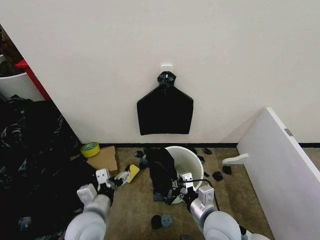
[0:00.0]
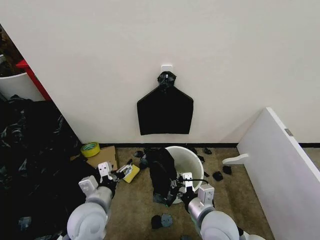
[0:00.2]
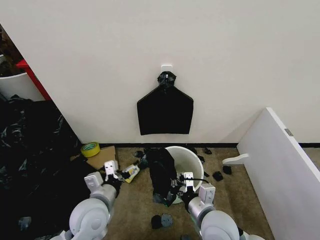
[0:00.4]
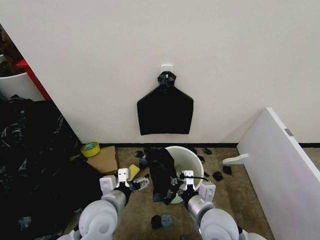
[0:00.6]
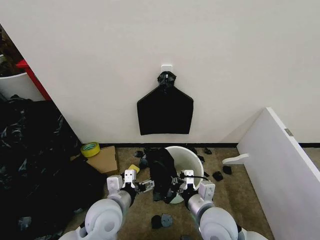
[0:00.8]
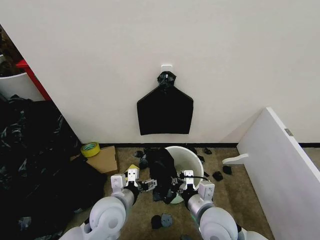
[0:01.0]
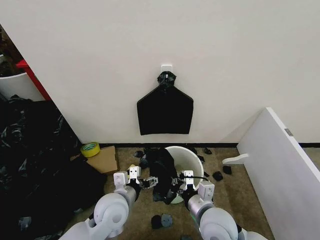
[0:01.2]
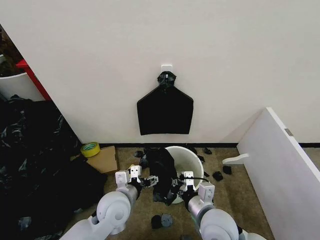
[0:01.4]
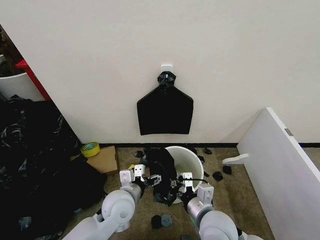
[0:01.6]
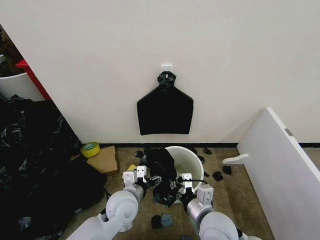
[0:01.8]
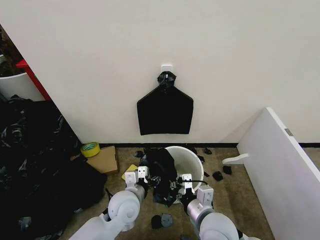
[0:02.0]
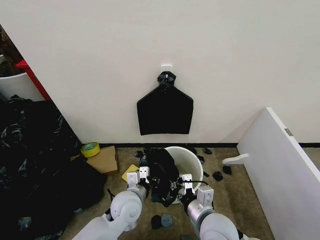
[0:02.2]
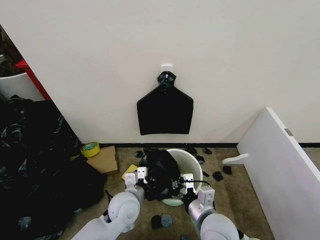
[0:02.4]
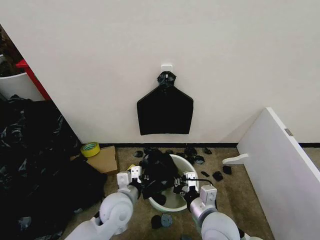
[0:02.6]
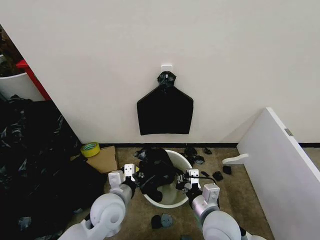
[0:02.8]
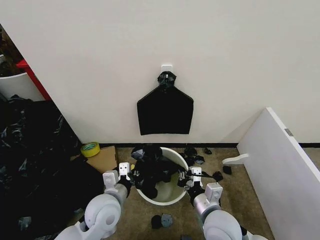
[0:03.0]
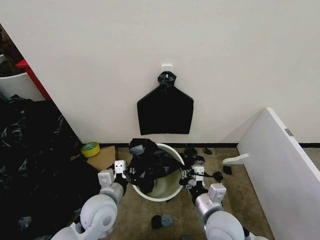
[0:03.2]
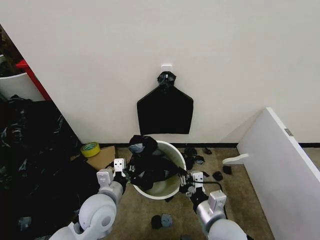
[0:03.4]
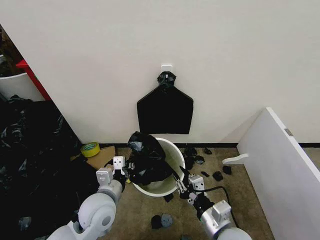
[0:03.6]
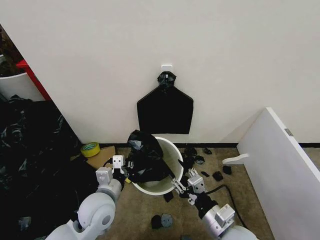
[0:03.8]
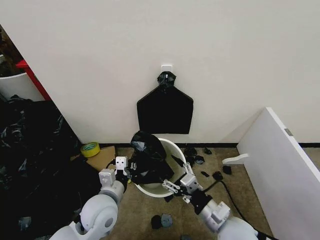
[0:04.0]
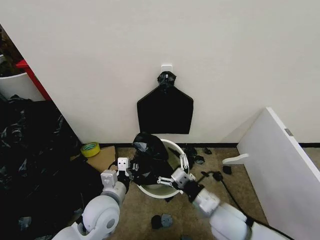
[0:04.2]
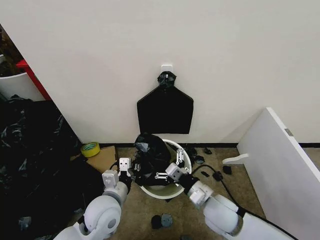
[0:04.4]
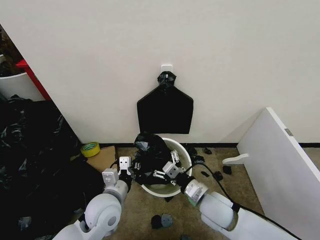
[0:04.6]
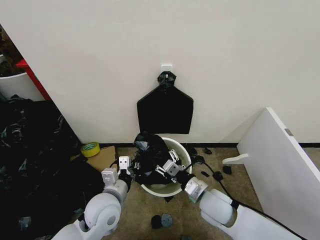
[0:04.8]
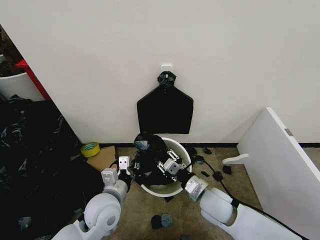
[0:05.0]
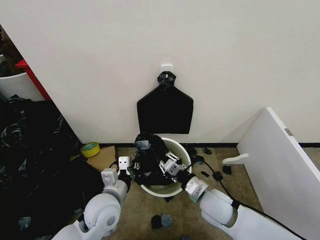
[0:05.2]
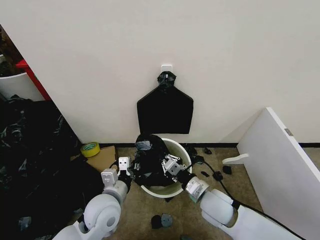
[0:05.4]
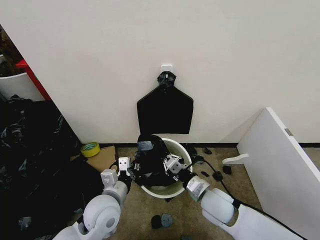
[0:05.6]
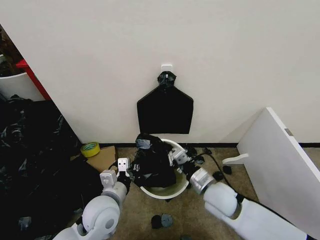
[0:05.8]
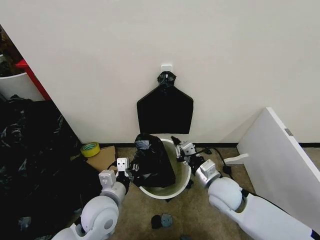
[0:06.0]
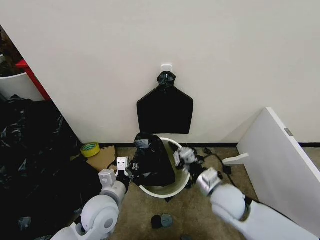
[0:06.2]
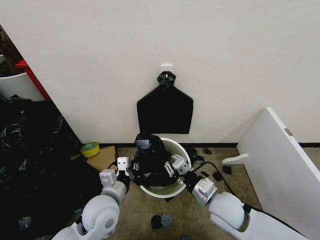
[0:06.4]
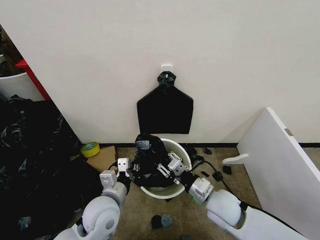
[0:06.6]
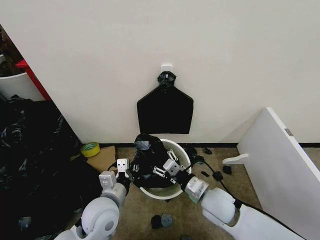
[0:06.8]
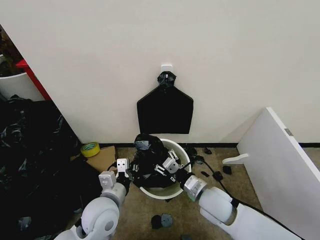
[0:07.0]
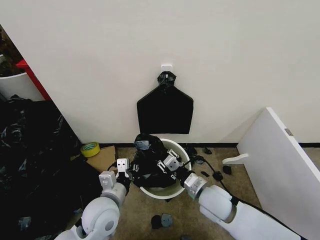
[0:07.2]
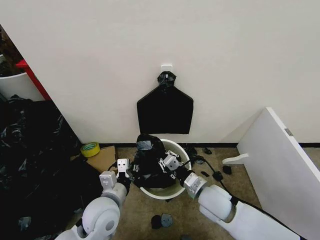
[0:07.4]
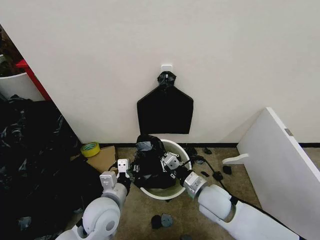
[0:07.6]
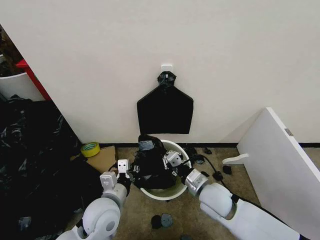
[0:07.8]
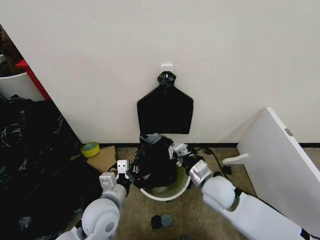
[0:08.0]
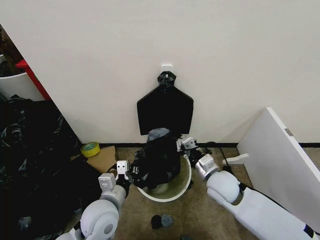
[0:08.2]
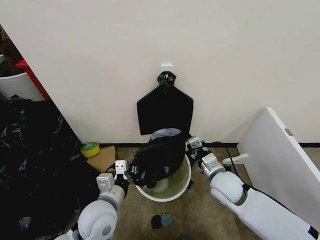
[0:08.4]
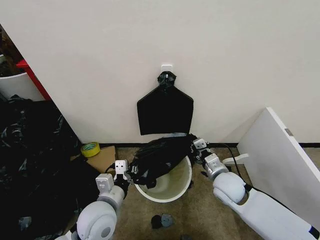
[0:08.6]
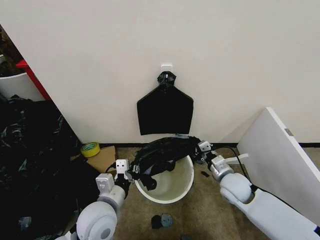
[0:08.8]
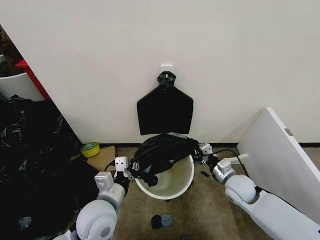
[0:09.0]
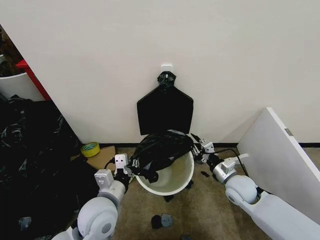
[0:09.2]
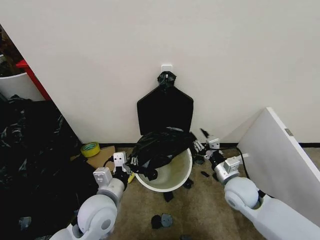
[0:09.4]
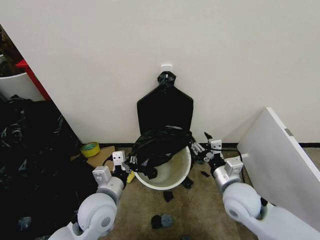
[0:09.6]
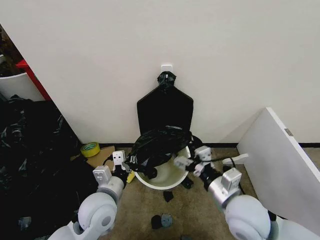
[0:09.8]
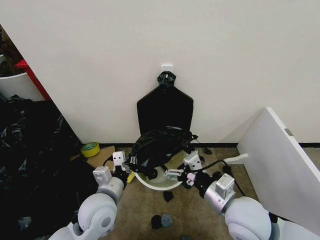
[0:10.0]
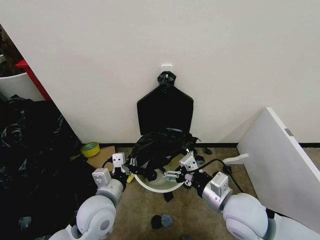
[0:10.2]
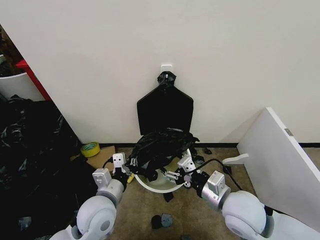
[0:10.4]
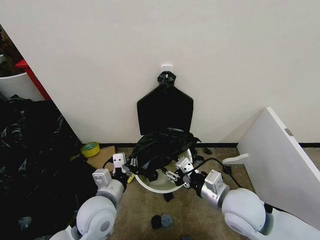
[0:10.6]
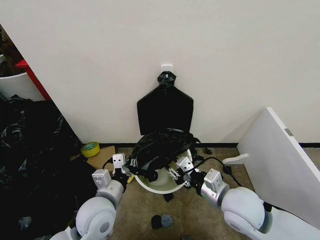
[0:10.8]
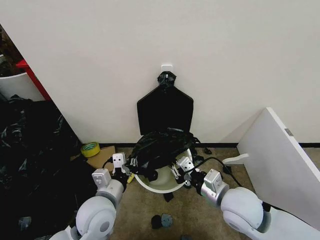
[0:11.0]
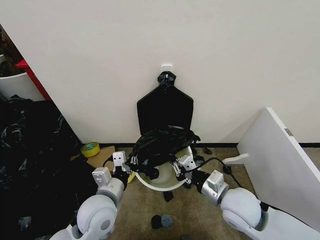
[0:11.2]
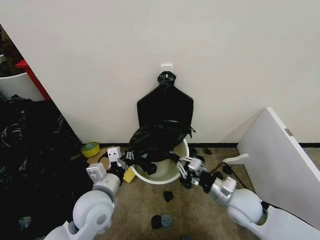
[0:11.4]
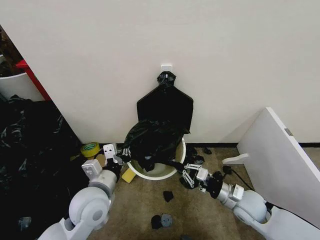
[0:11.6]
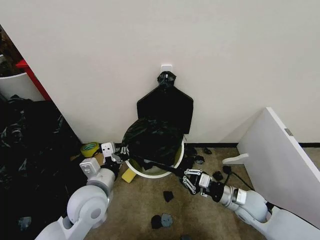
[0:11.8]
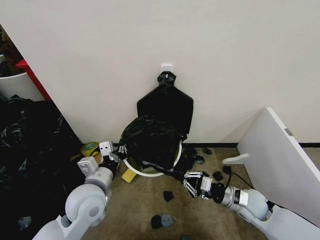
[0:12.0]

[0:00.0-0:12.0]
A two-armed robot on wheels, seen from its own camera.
Task of the whole recording: Place the garbage bag over the trash bin.
0:00.0 to 0:01.6: The left gripper goes approximately 10 cm to the right and forward.
0:01.6 to 0:03.0: The left gripper closes.
0:03.0 to 0:04.4: The right gripper shifts by some 5 cm, and opens its fingers.
0:04.4 to 0:06.0: The right gripper ends up about 5 cm from where it was, and closes its fingers.
0:06.0 to 0:07.6: The right gripper opens, then closes once more.
0:07.6 to 0:09.0: The right gripper shifts approximately 15 cm to the right and forward.
0:09.0 to 0:10.4: The right gripper moves upward, backward and to the left, roughly 15 cm, and opens up.
0:10.4 to 0:12.0: The right gripper heads downward, to the right and forward, covering some 15 cm, and closes its fingers.

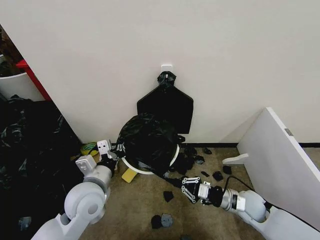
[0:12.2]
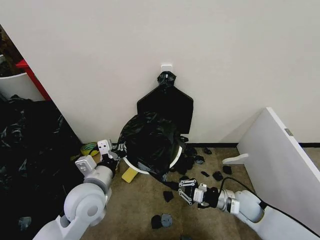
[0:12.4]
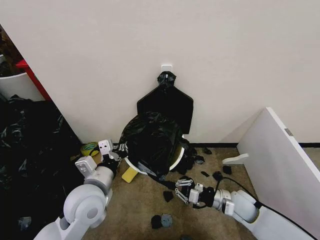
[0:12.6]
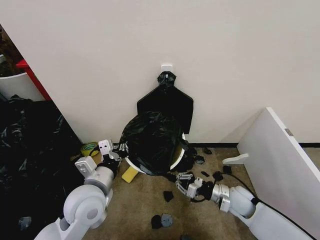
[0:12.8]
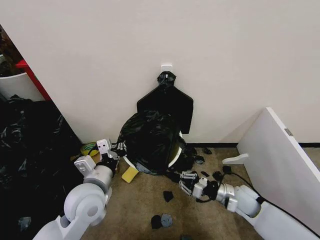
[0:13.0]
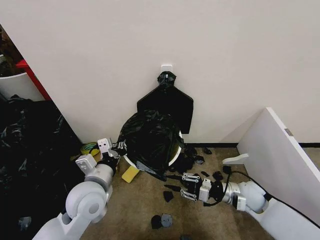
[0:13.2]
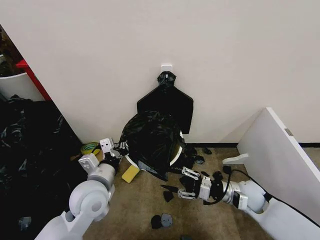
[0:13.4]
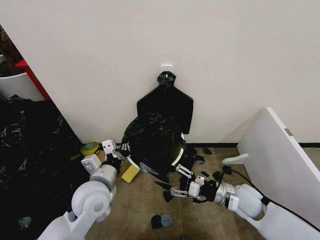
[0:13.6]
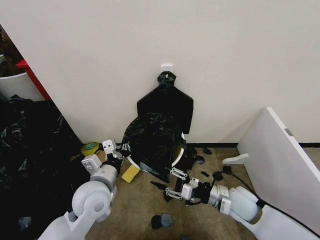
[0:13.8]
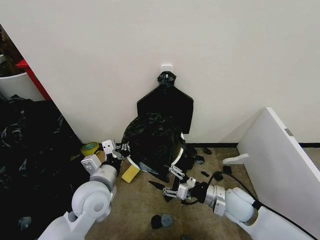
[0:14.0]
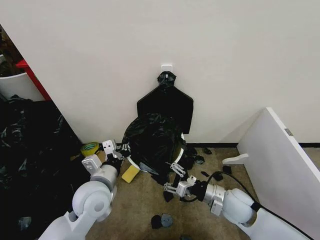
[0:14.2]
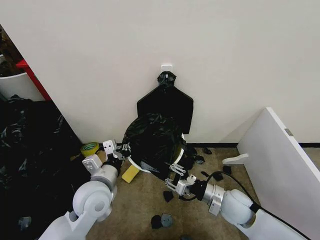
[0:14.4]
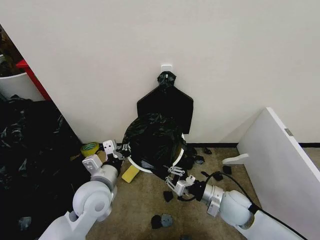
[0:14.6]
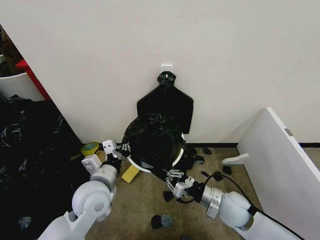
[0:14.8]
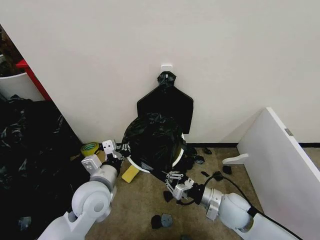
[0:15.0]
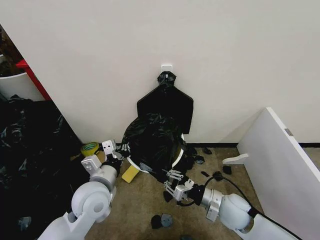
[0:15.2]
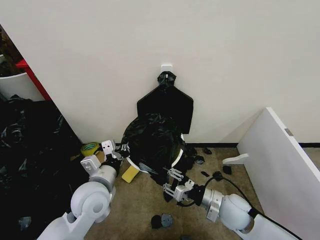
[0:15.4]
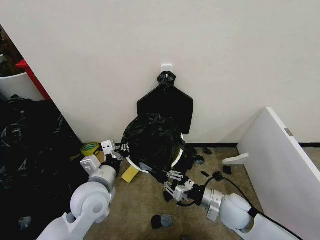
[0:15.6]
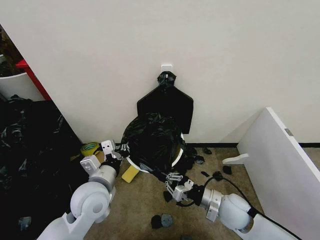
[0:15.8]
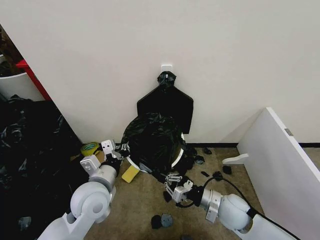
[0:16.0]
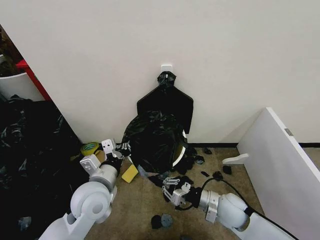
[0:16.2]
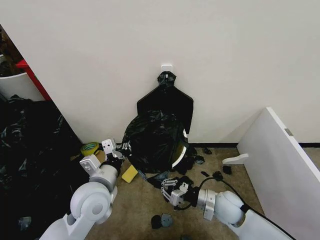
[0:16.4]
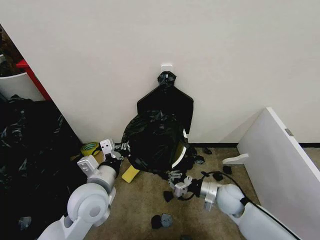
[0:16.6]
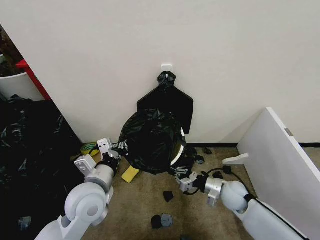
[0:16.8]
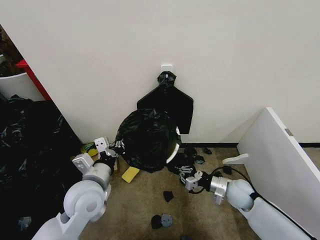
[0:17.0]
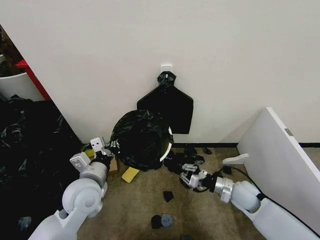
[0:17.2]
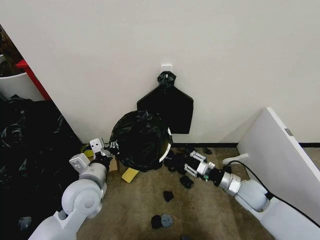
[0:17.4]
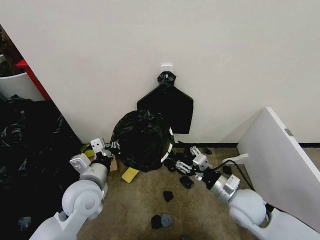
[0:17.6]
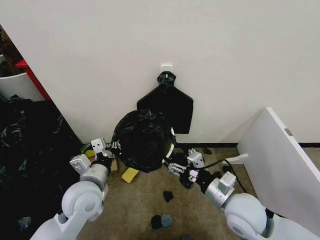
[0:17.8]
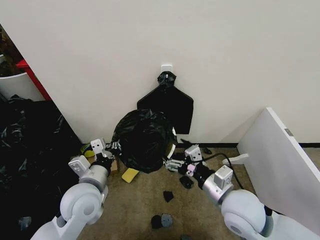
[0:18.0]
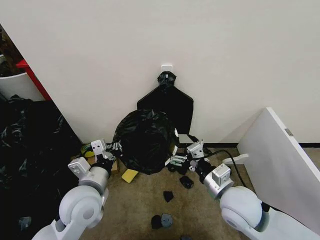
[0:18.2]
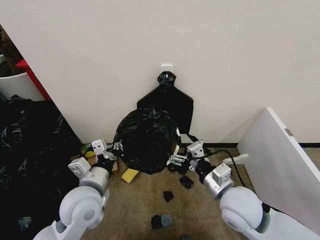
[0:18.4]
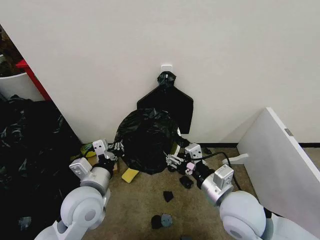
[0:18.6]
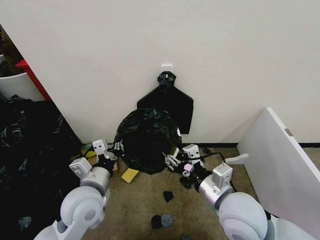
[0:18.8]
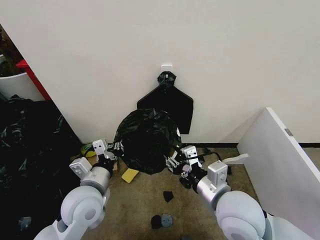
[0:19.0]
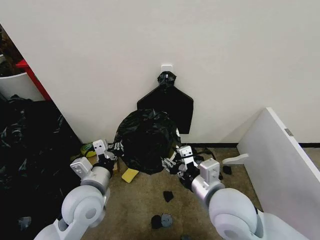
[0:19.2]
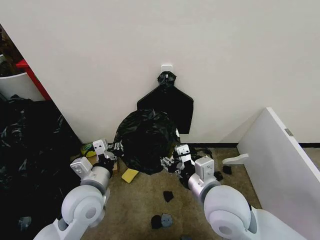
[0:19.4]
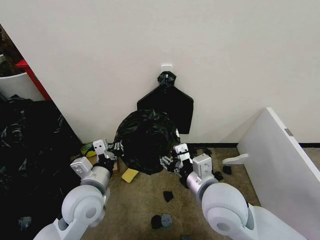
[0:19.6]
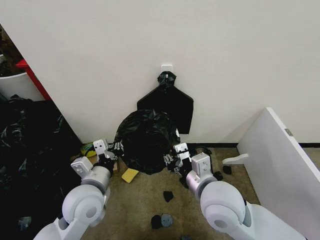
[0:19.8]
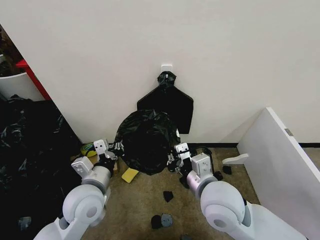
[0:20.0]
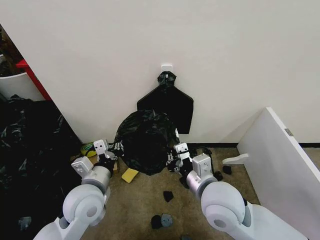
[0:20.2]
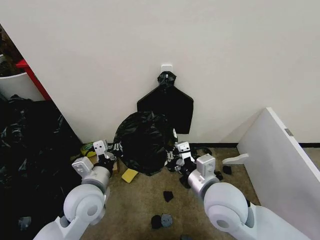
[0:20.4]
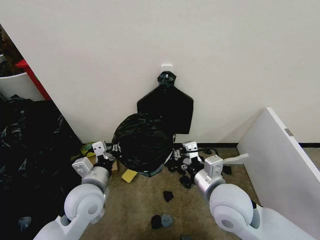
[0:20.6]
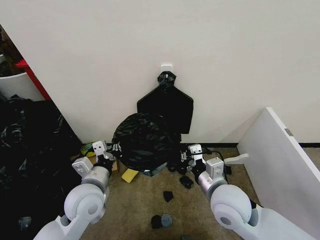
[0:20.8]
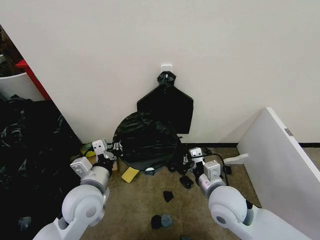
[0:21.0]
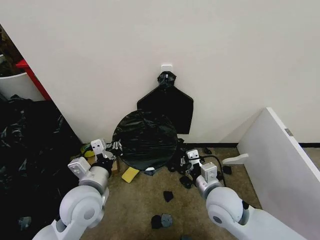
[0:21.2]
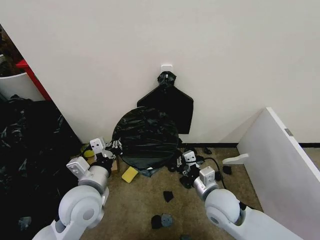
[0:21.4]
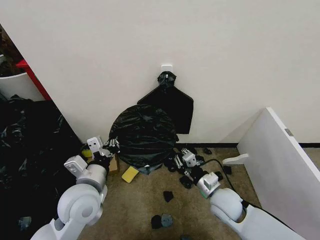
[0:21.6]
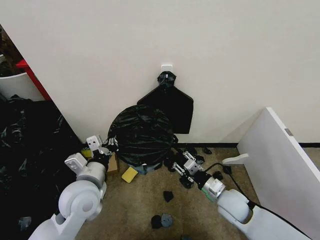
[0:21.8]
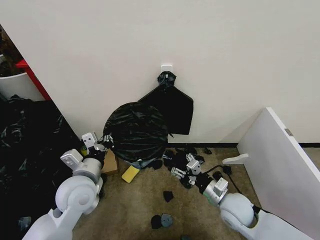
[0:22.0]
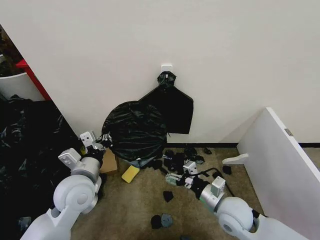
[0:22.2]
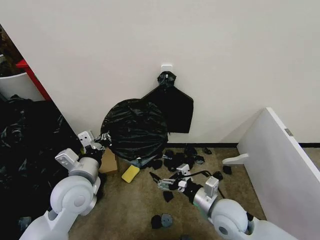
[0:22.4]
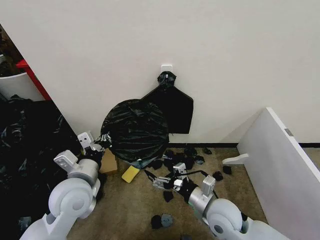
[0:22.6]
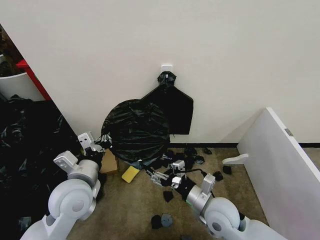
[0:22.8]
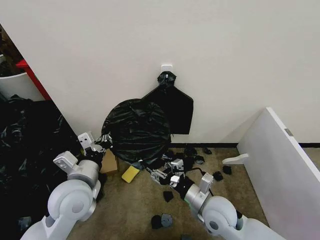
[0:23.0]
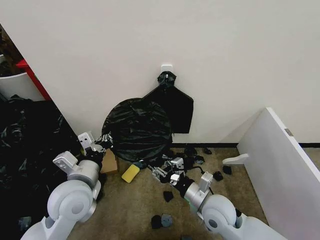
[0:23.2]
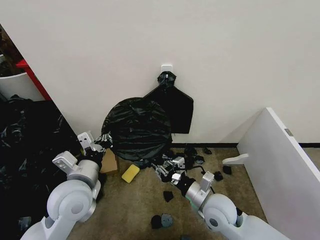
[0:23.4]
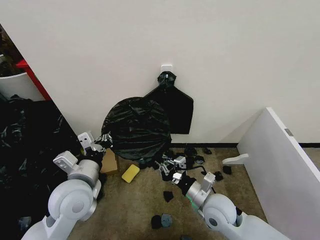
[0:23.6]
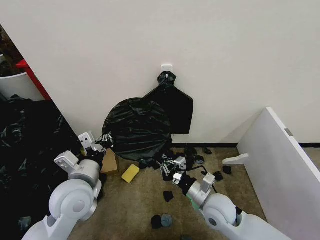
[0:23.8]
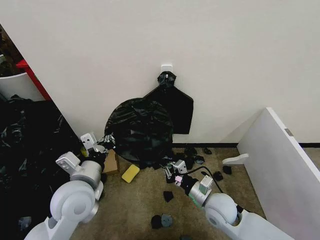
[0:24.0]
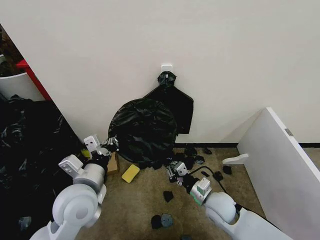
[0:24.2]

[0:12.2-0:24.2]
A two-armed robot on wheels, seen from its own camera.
Task of the whole recording: Place the garbage bag over the trash bin.
0:12.2 to 0:13.8: The right gripper ends up roughly 5 cm from where it was, and opens.
0:13.8 to 0:15.2: The grippers make only small movements.
0:15.2 to 0:16.6: The right gripper moves about 5 cm.
0:16.6 to 0:18.2: The right gripper shifts roughly 15 cm upward and backward, and opens.
0:18.2 to 0:19.8: The right gripper goes about 10 cm to the left and upward, and closes.
0:19.8 to 0:21.2: The right gripper shifts some 10 cm downward, and closes.
0:21.2 to 0:22.6: The right gripper opens up.
0:22.6 to 0:24.2: The right gripper goes some 5 cm downward, and closes.
